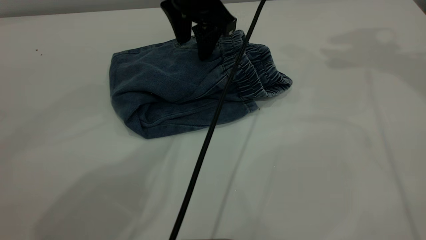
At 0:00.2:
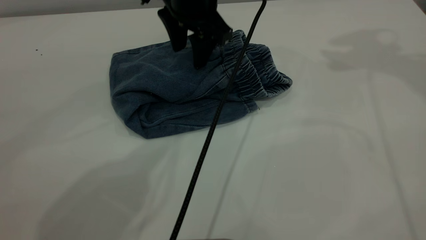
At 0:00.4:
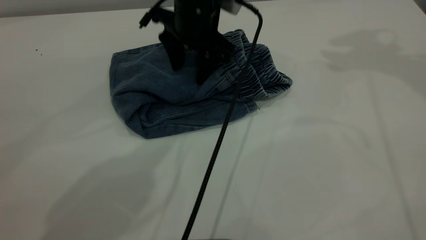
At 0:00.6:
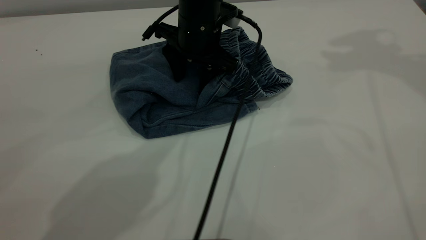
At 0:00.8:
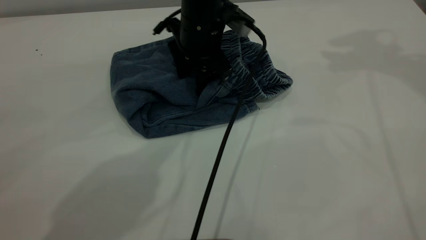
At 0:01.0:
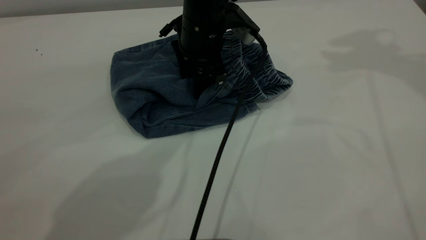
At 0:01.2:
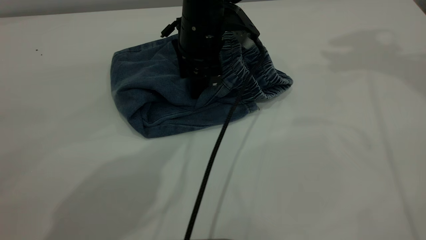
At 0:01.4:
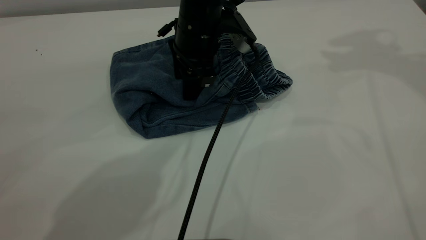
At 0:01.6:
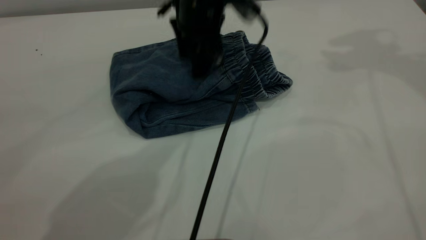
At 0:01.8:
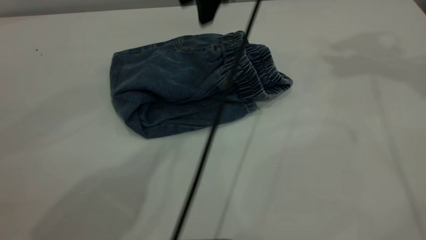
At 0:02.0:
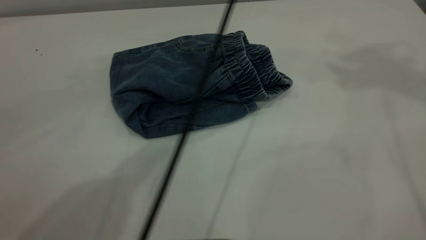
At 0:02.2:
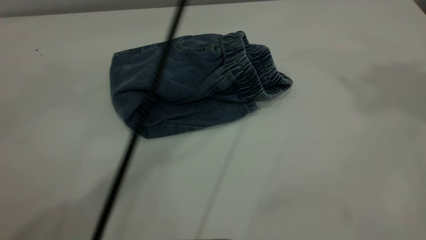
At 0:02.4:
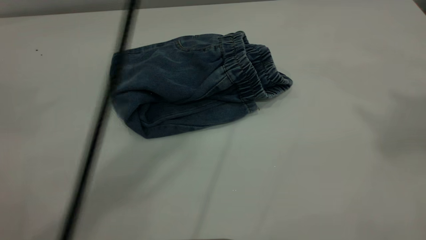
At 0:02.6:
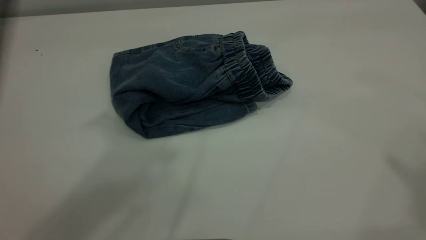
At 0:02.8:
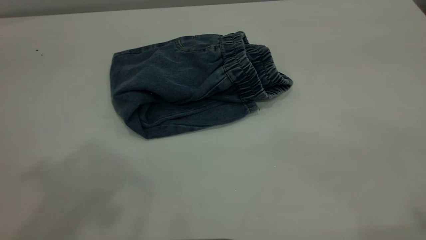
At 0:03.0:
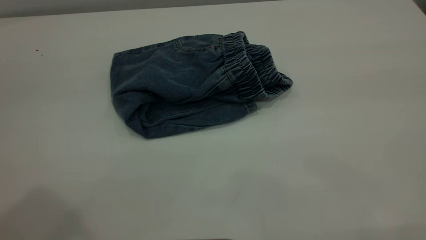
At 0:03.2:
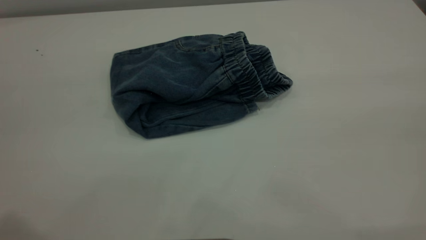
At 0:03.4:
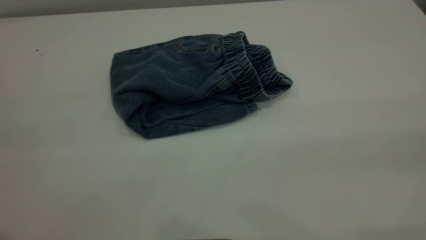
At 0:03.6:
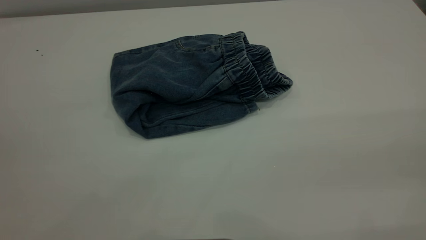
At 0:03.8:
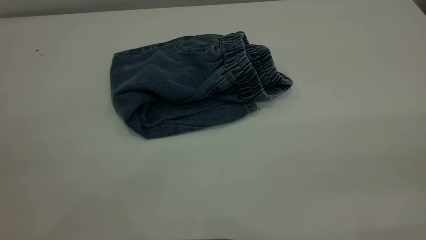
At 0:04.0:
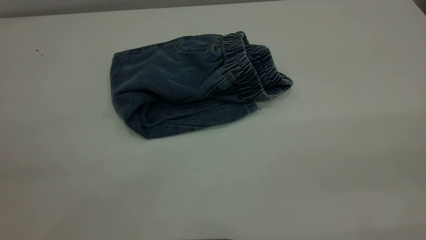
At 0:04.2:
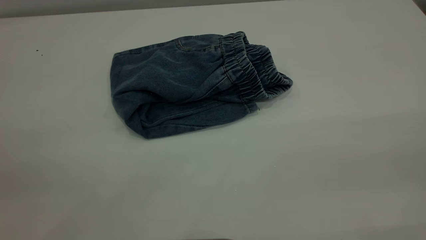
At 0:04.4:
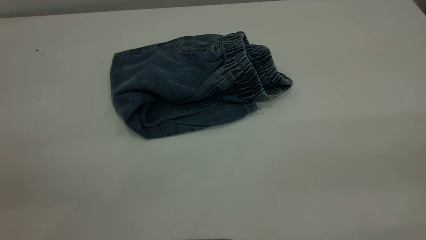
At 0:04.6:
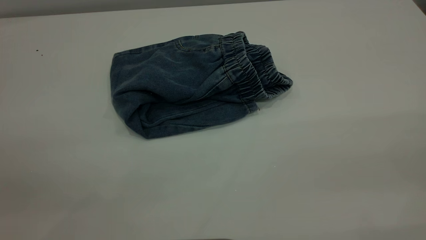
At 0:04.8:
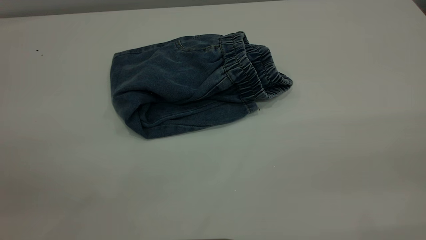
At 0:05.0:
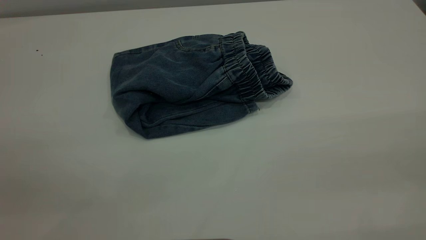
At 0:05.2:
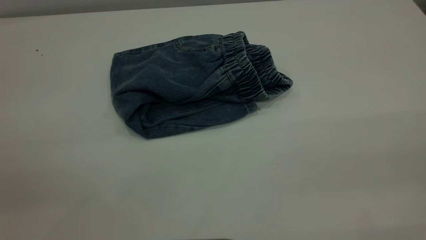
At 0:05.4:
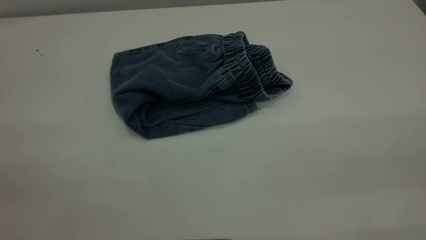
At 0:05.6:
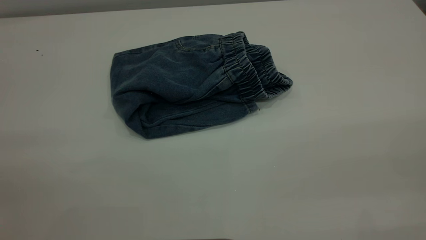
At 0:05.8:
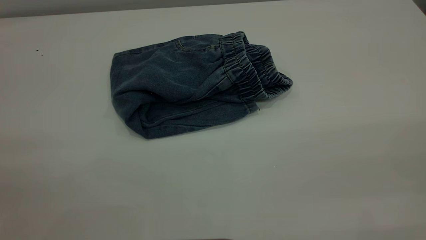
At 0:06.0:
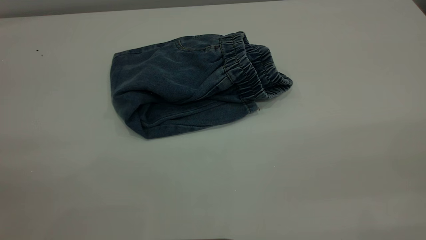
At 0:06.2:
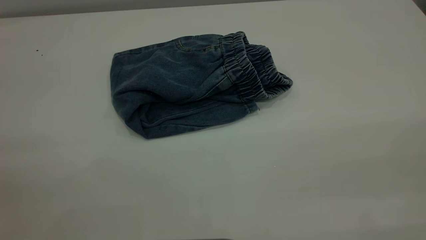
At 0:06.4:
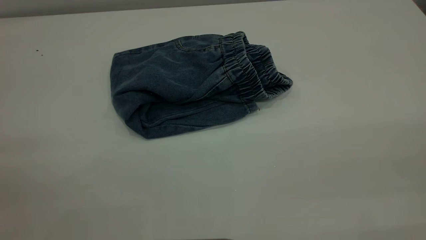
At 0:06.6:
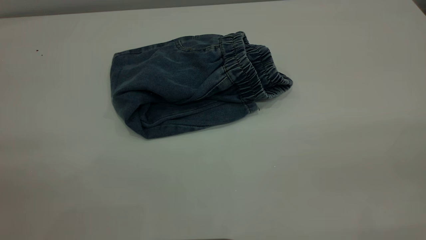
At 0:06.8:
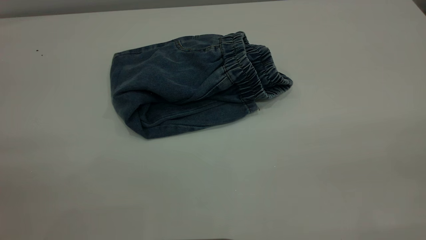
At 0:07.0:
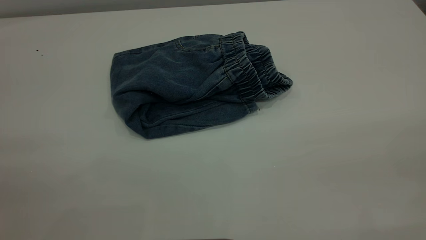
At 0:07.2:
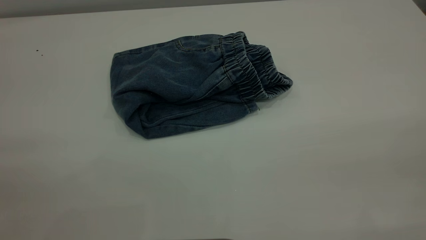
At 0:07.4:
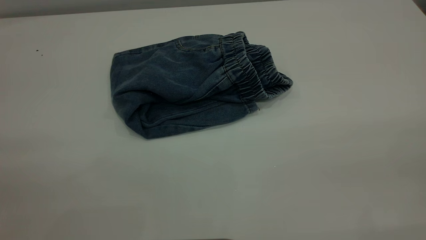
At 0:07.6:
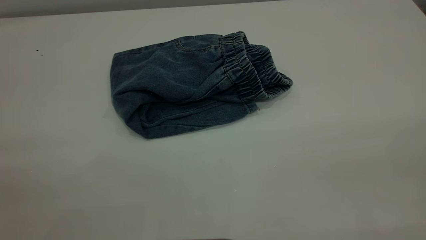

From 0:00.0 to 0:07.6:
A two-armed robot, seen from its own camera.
From 0:01.6 to 0:03.0: The left gripper travels backward, upward and to the left by roughly 50 cm. The right gripper heads backward, covering some 40 cm.
